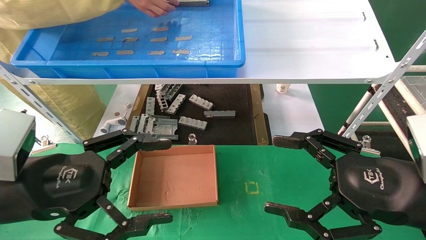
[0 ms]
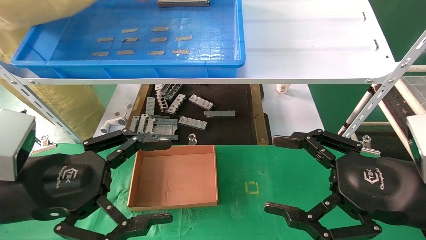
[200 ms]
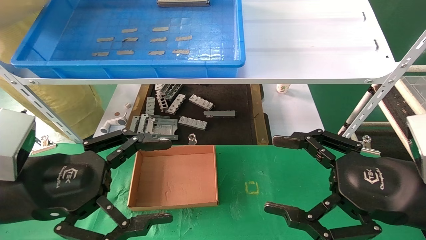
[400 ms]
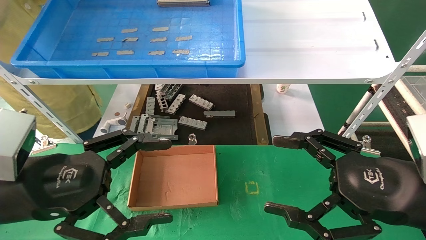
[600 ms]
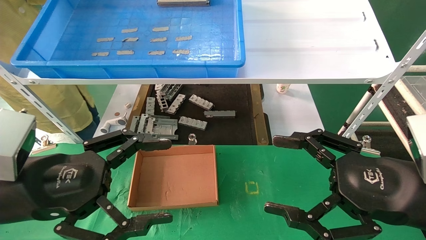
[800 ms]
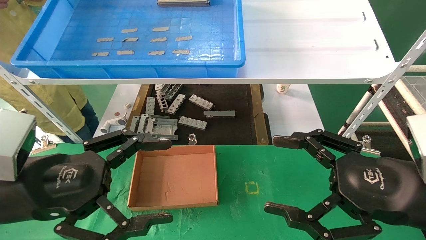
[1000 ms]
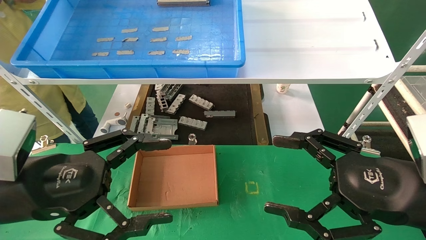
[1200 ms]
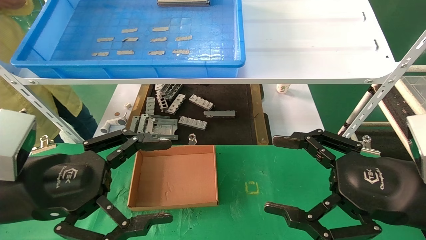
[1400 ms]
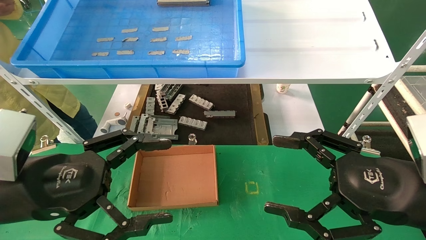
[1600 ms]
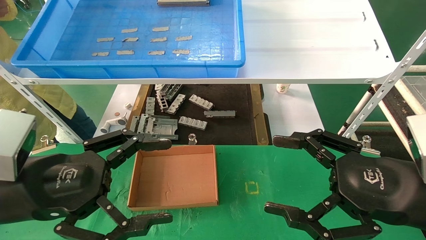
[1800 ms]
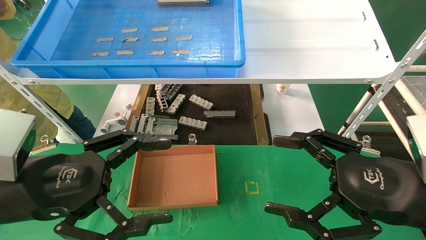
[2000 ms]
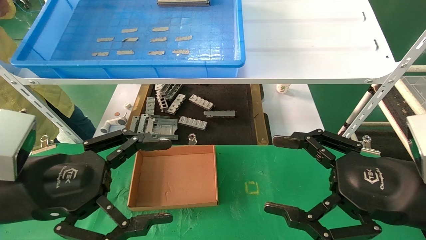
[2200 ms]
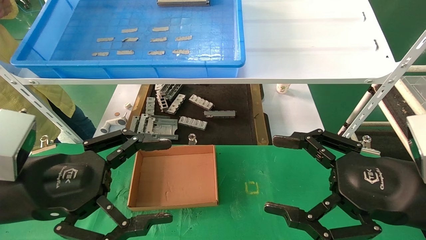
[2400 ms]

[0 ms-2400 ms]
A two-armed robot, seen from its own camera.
Task of the whole recording: pick up the parts on the tray and put them in the cardboard box.
0 ms to 2400 ms: Both grippers stay put.

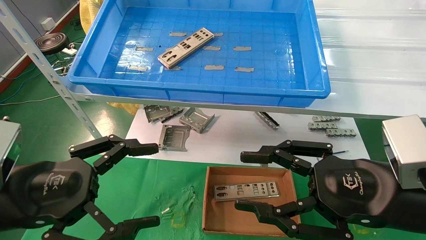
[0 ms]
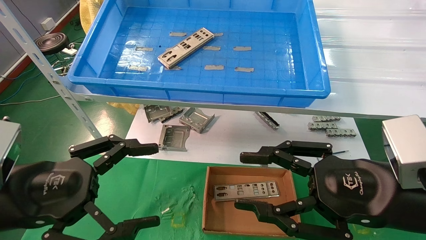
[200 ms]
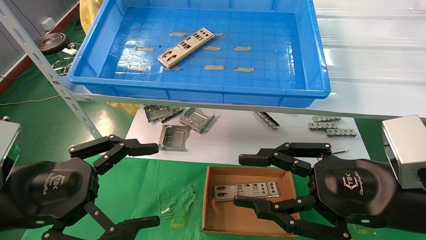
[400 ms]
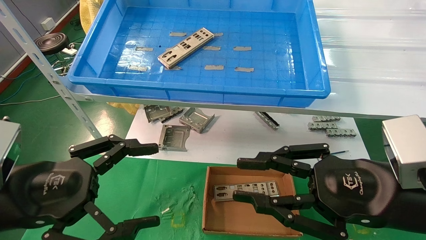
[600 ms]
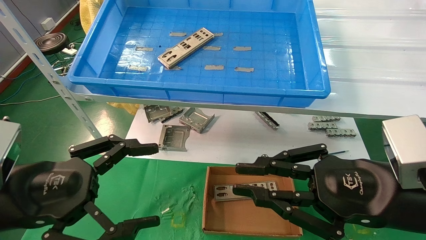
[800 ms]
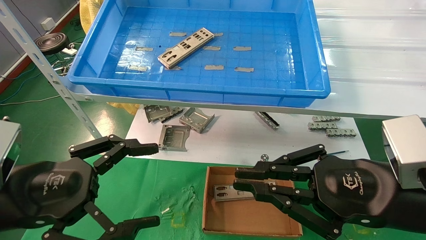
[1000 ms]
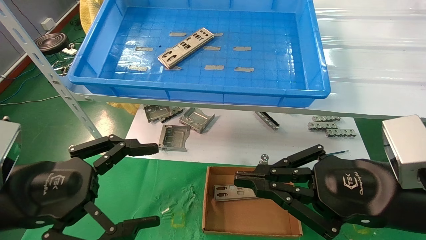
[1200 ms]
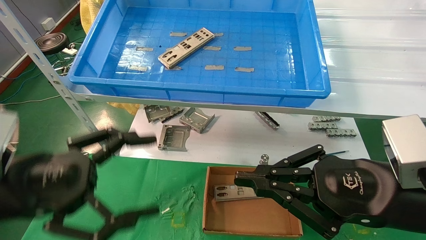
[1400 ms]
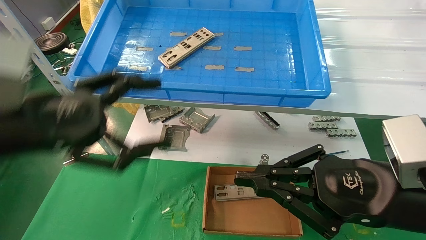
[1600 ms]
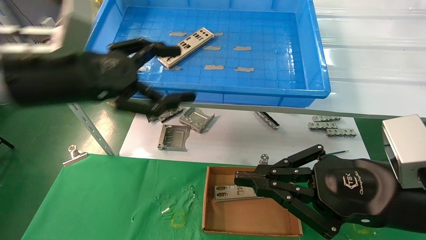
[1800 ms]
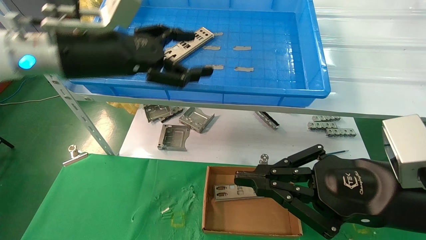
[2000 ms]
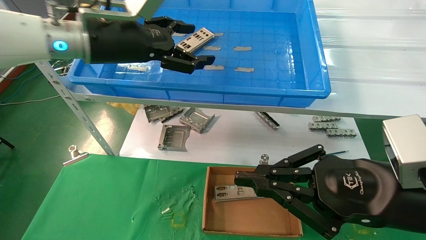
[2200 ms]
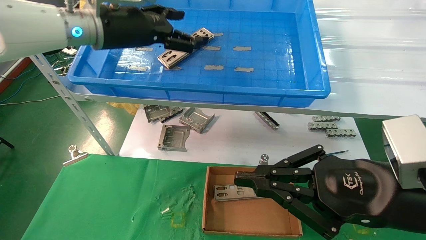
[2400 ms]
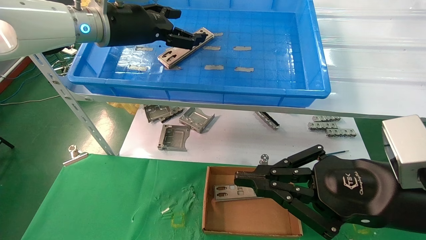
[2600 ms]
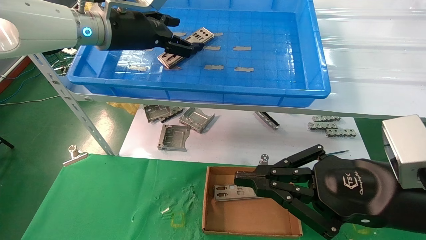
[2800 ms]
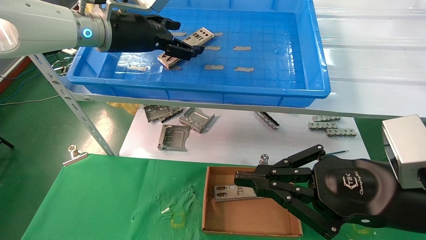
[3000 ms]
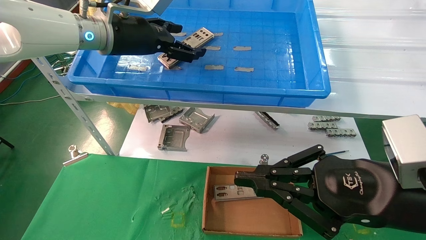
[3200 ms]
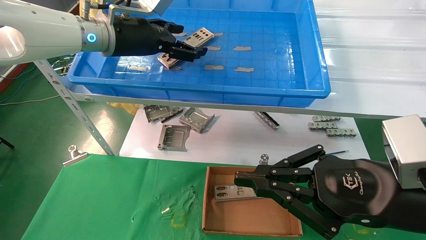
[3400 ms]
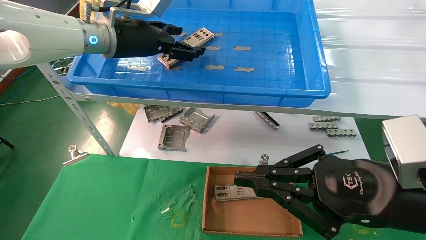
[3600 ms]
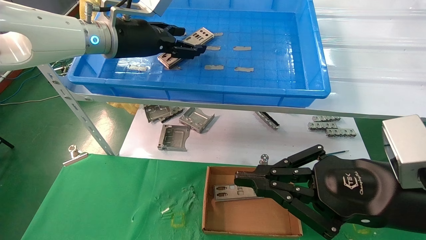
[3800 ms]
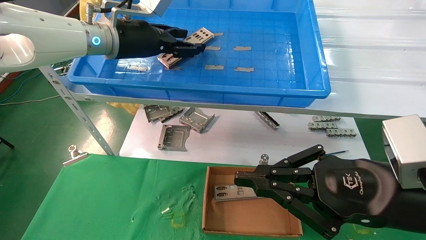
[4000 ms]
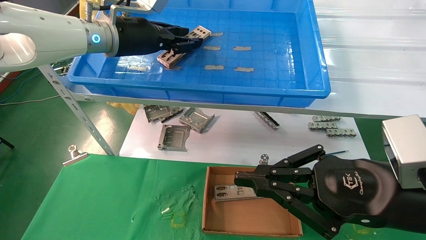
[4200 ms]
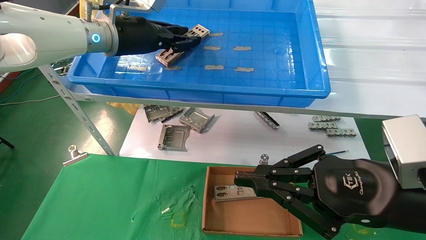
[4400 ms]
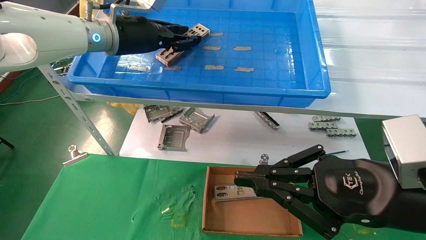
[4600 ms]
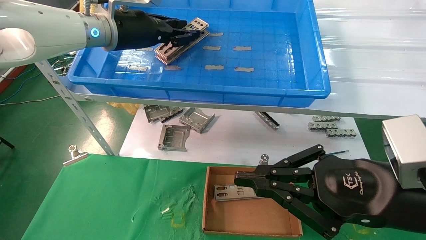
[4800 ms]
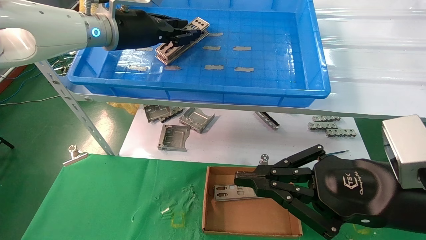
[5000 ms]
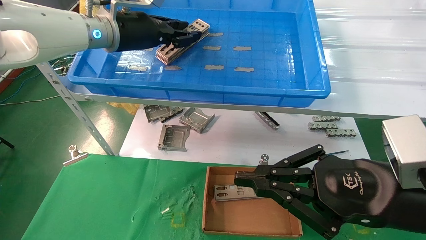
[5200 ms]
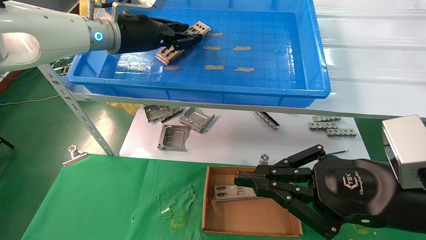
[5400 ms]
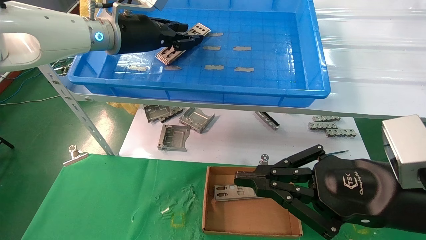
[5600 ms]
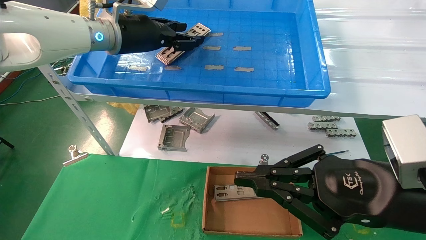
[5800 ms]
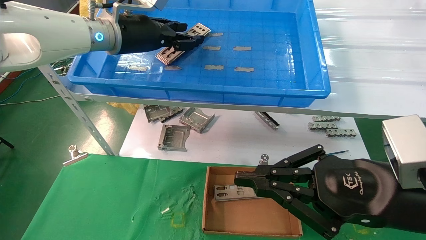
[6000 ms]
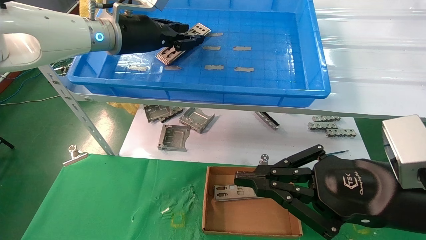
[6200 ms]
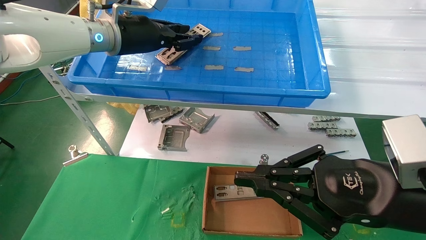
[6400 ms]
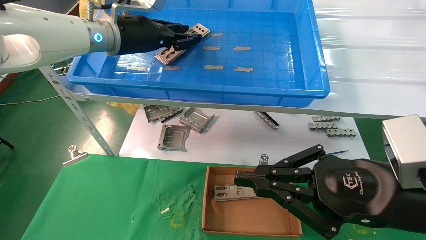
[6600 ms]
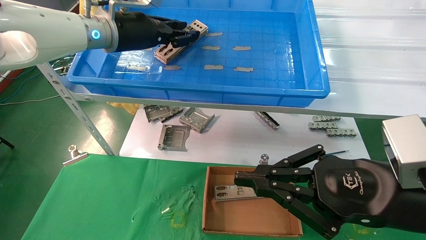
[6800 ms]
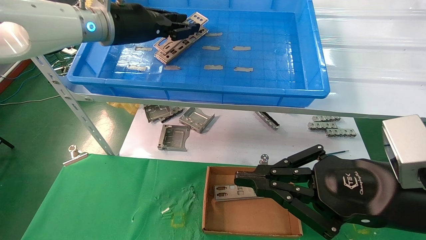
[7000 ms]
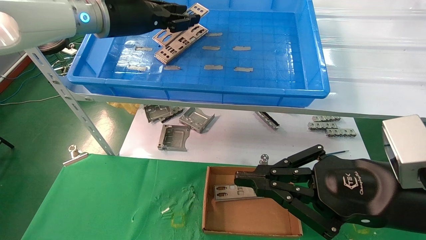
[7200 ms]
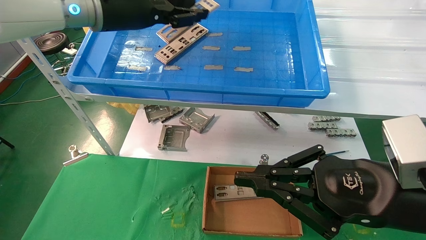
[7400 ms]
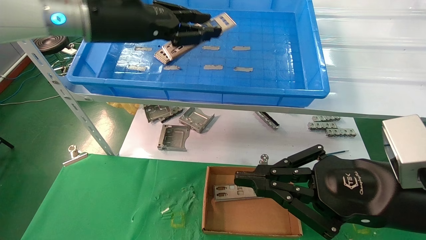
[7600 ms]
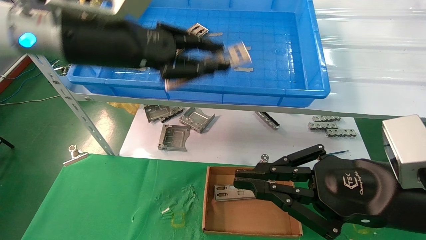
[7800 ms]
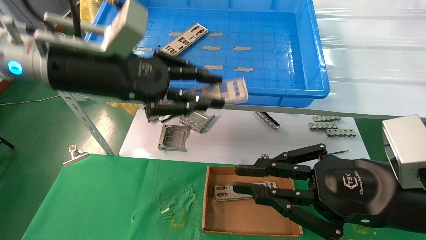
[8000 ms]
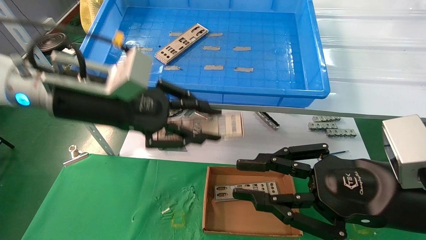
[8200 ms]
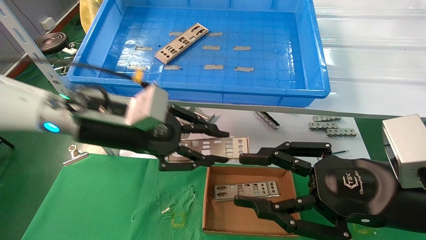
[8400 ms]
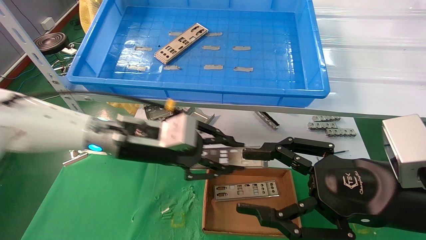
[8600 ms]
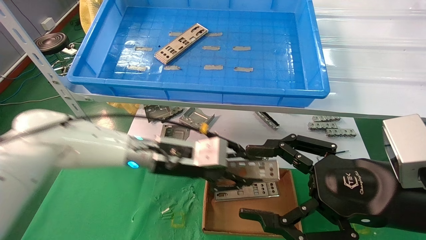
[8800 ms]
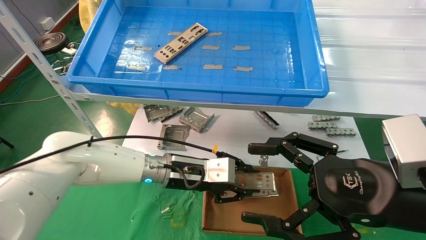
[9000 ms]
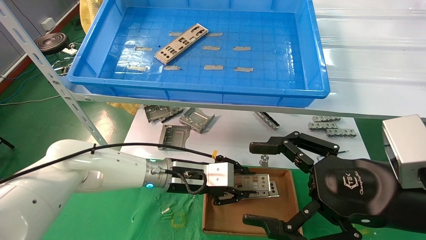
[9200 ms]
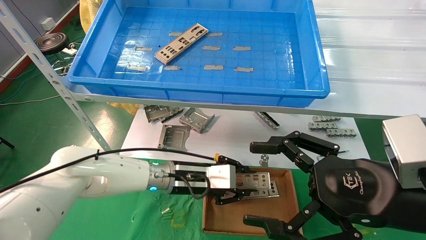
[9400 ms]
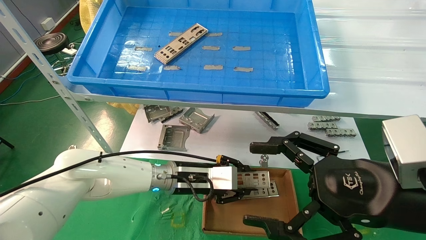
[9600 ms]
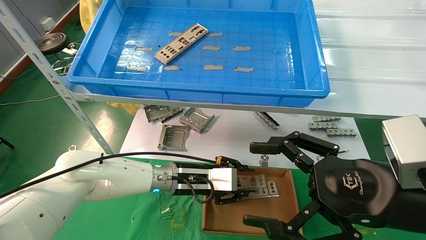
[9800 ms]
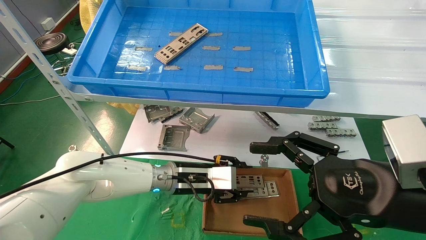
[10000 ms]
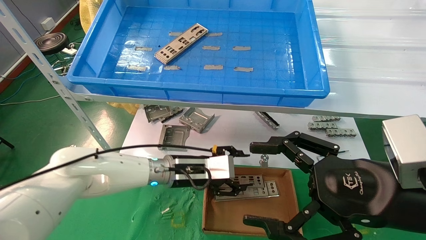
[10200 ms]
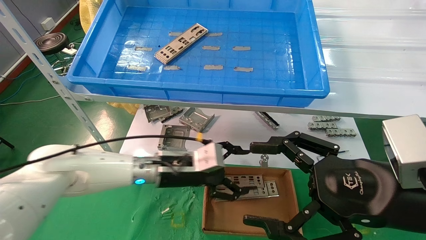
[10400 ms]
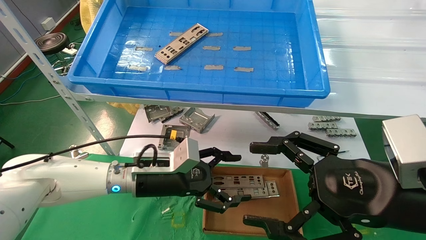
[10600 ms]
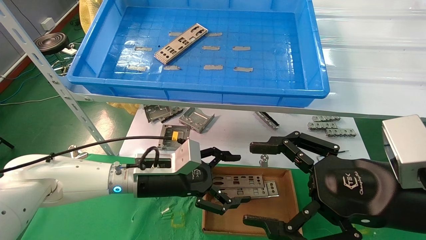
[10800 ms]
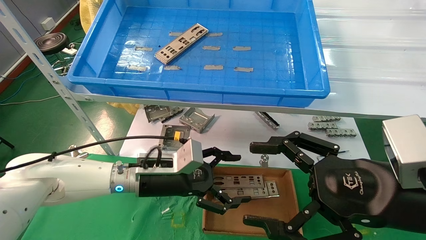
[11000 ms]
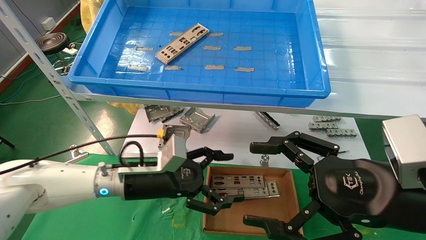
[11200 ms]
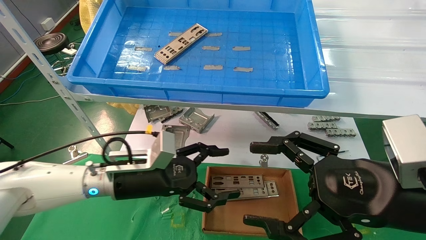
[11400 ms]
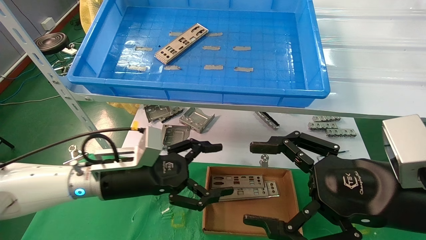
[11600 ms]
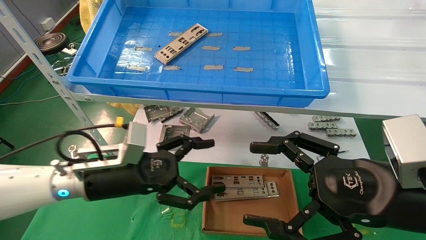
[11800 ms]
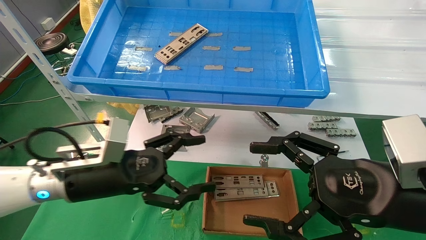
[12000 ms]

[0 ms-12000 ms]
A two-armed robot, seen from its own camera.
Task of the whole recording: pick up the parts on the tray and put them in the cardboard box.
Step, 1800 ms to 6800 ms: Pick up the IO bracket from the container box.
Step, 7000 ms to 10200 ms: Place the IO bracket into the ingredient slot.
0 ms to 1600 ms: The left gripper travels upward and forward by about 10 cm, while the right gripper closes up.
1600 ms to 3000 ms: The left gripper travels forward, upward and to the right by some 20 cm.
3000 ms to 4400 ms: The left gripper closes.
4400 ms to 6000 ms: Both grippers stay about where they are.
6000 ms to 7600 ms: The left gripper goes some 10 cm backward.
7600 ms to 9000 ms: The right gripper opens. Meanwhile the left gripper is displaced downward by roughly 25 cm.
9000 ms to 10400 ms: The left gripper opens up.
10400 ms to 12000 ms: The left gripper heads to the left and backward, covering some 15 cm, and opens.

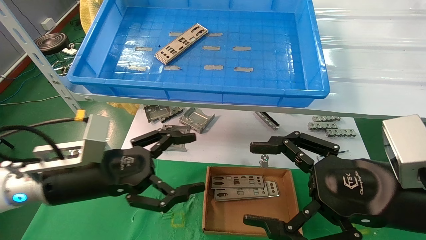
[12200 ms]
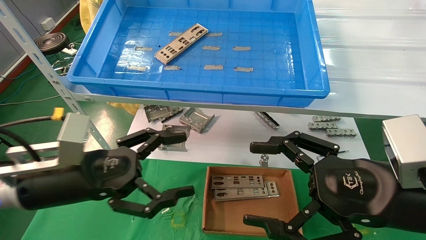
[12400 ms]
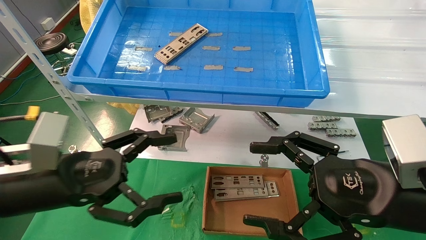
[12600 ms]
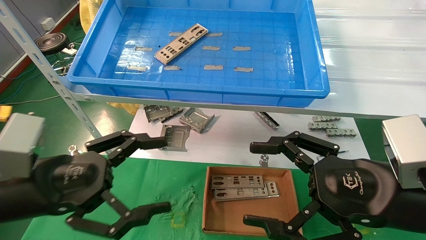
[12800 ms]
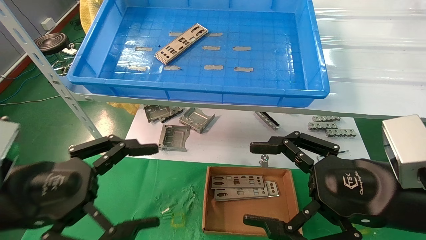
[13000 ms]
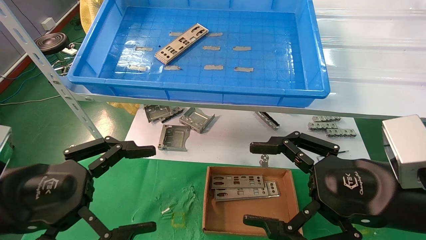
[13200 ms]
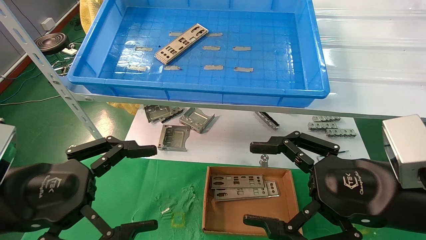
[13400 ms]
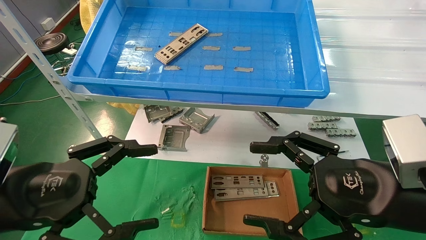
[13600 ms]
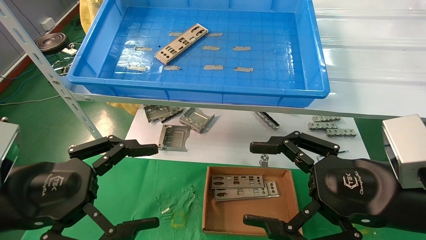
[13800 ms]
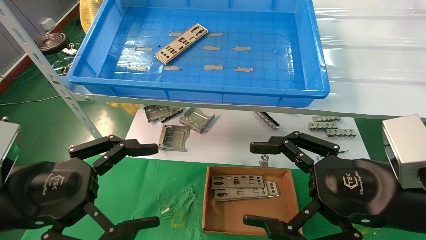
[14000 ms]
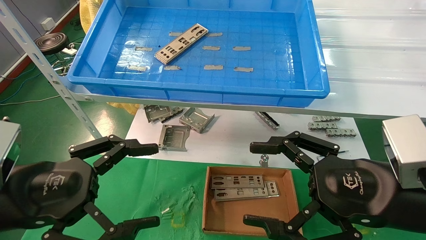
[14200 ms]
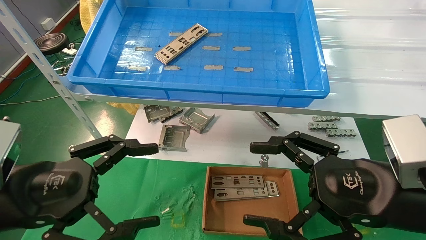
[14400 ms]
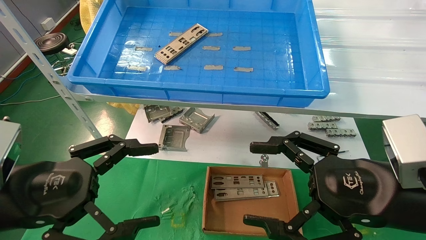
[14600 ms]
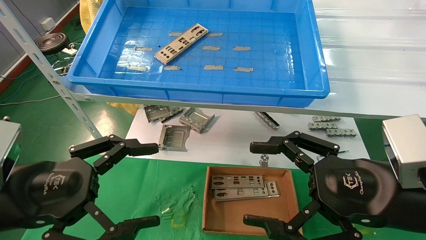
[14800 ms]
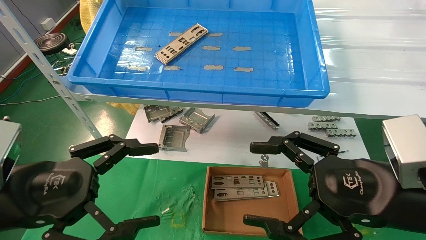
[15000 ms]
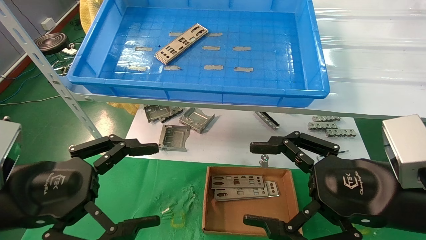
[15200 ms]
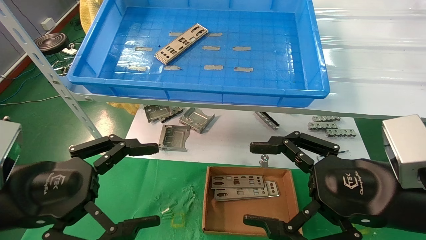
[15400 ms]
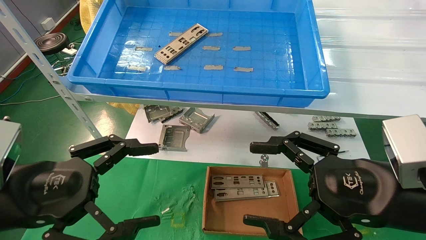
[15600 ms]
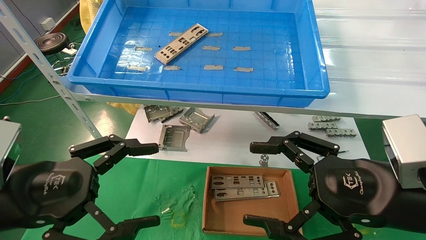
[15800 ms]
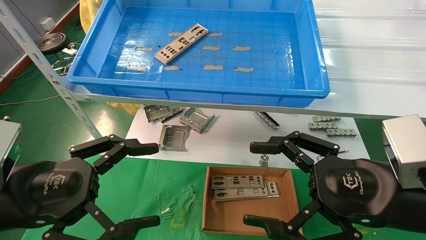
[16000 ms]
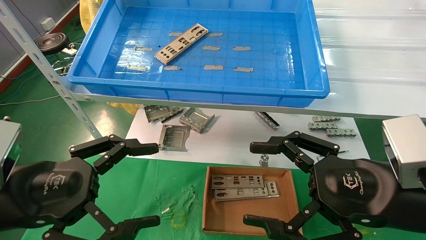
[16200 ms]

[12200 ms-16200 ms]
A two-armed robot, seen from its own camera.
Task of the whole recording: pick up the parts on the tray and put them in the cardboard box.
12200 ms to 13600 ms: The left gripper goes roughly 10 cm backward.
13600 ms to 16200 ms: Both grippers stay put.
